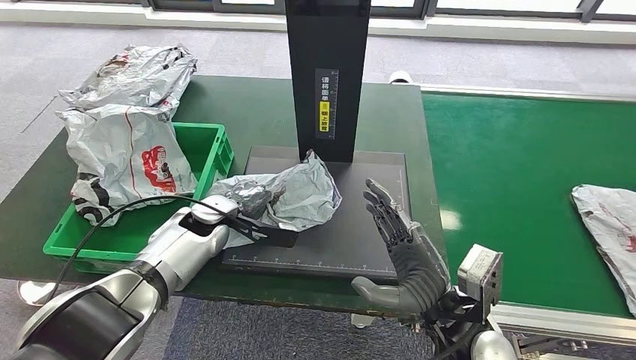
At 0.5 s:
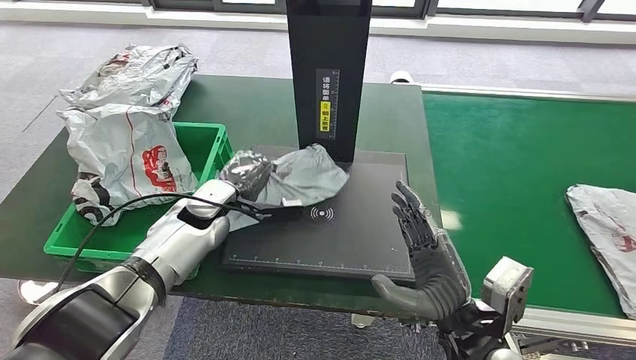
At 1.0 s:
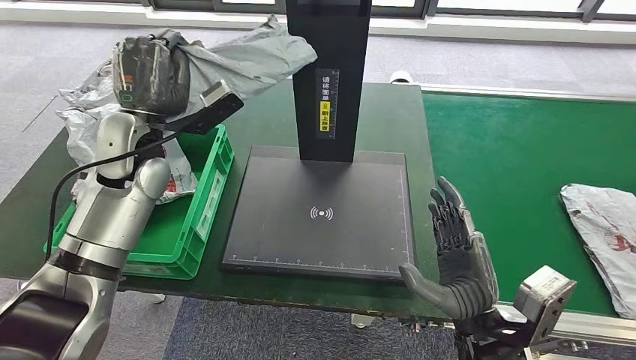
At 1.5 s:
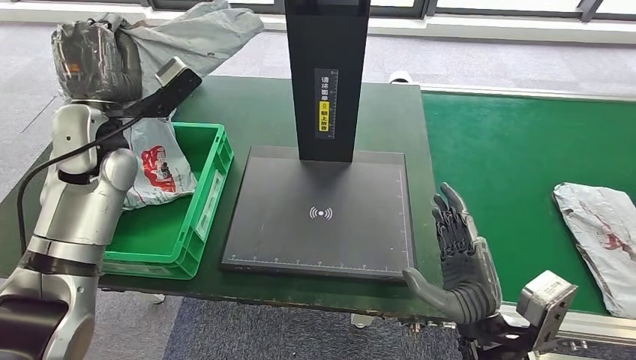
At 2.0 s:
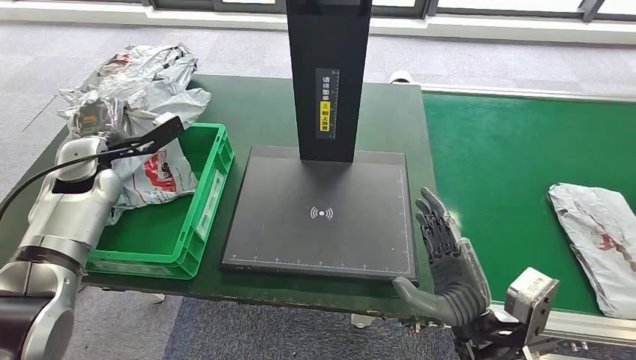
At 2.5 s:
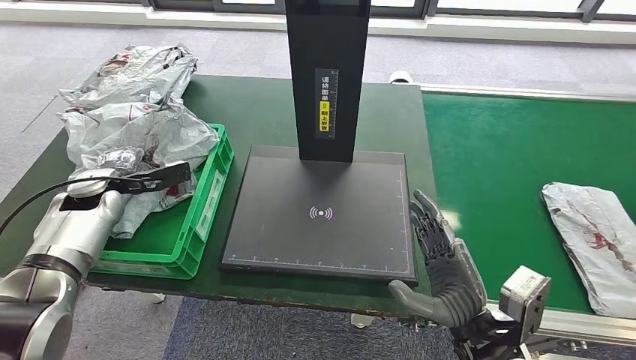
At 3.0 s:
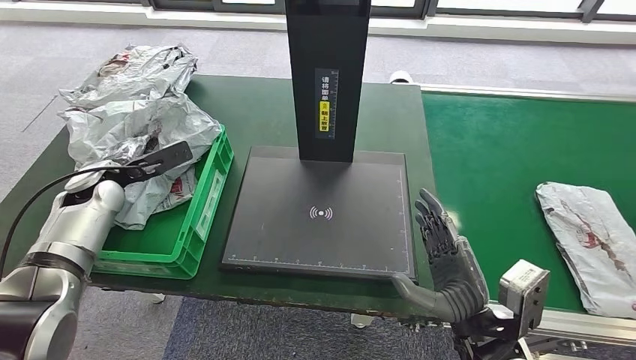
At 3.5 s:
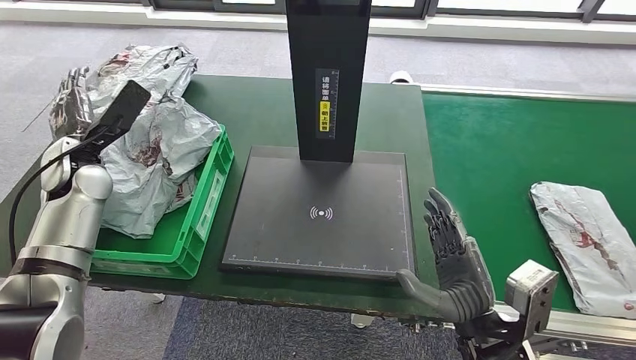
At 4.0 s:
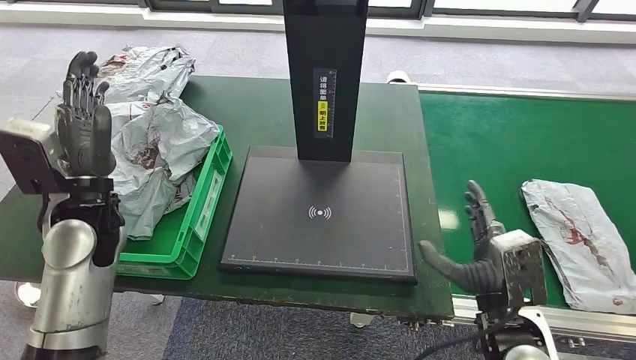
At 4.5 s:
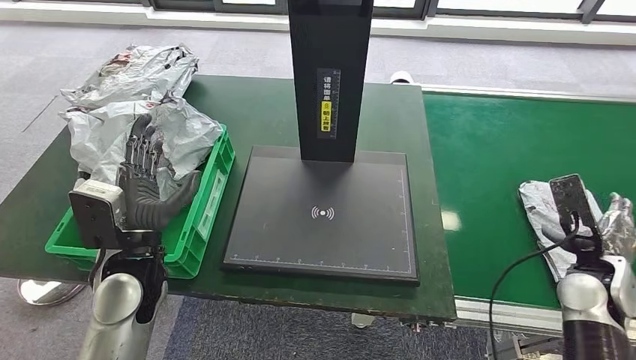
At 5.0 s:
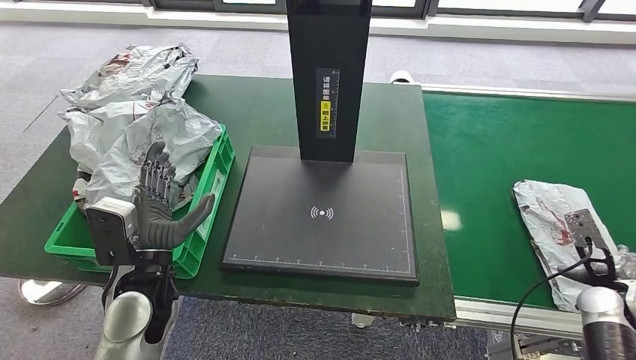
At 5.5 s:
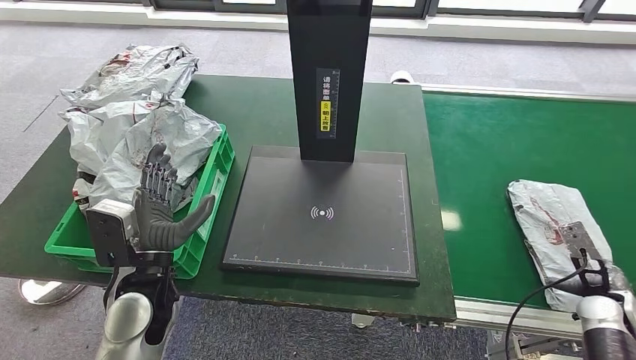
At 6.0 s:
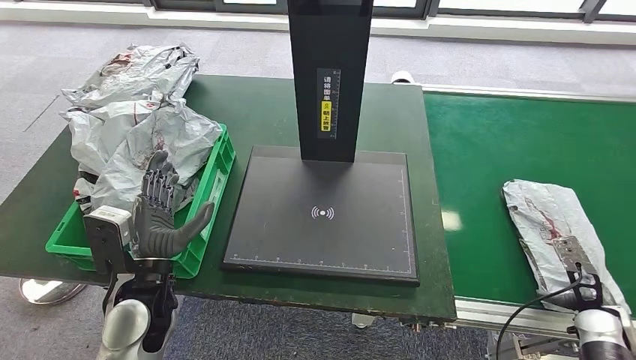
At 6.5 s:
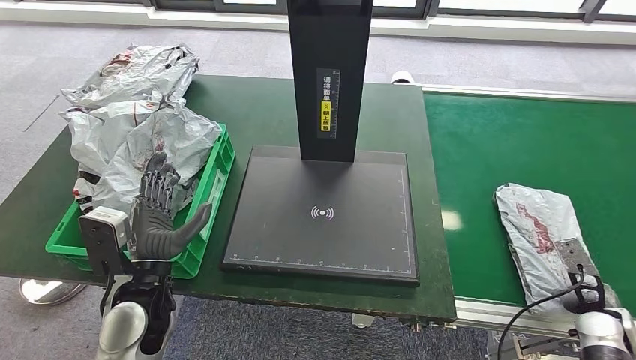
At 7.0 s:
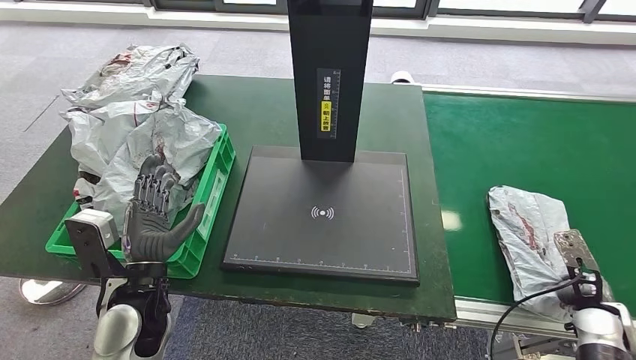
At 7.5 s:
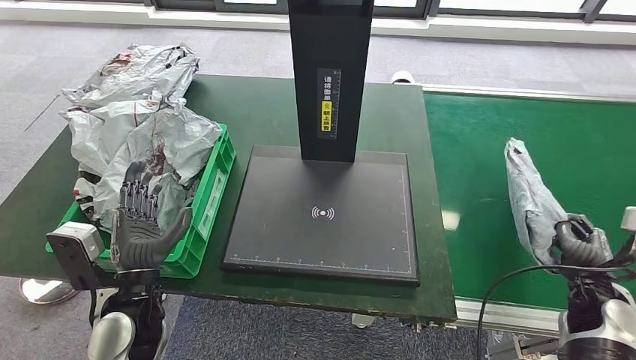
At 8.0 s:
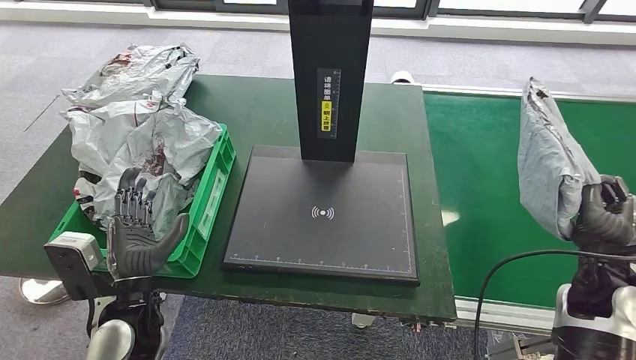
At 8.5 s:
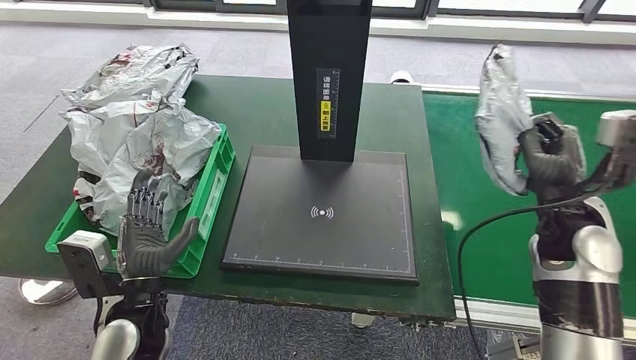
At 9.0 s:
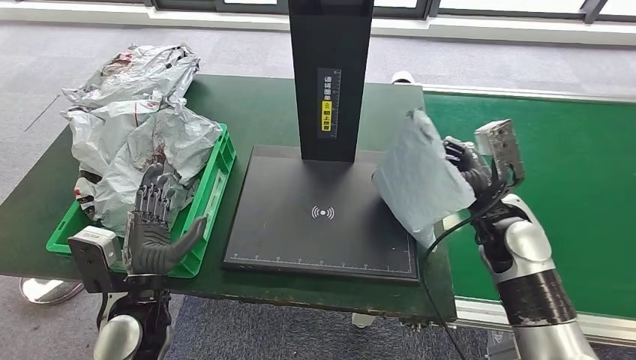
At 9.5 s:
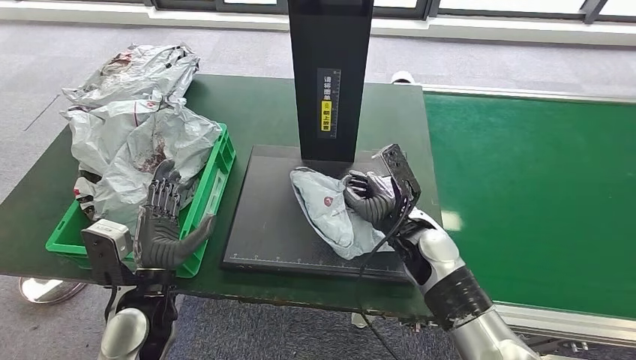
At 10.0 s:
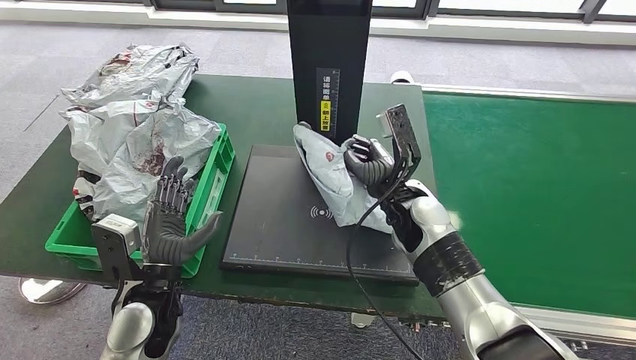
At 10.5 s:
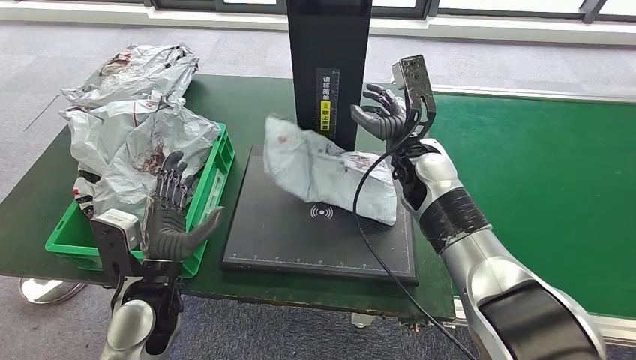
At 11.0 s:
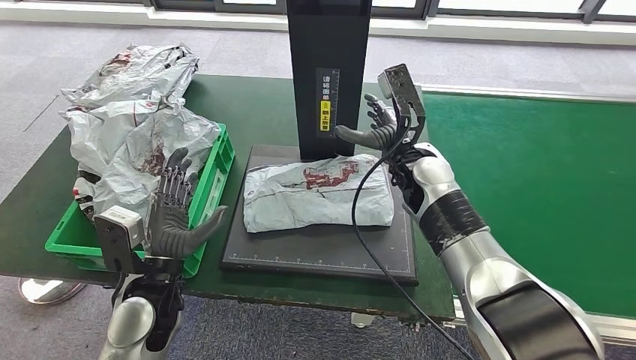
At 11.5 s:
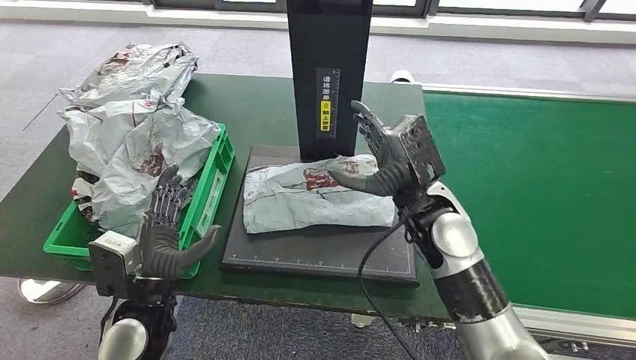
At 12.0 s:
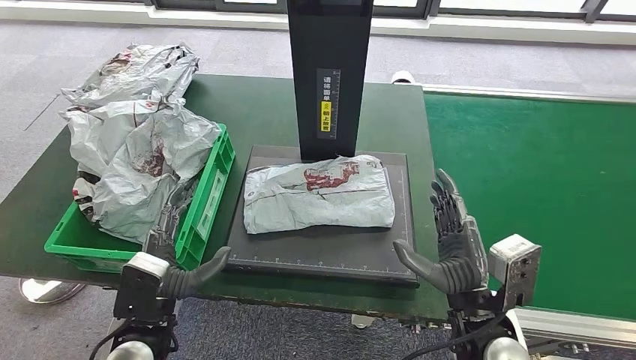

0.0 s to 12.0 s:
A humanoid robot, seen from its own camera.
Step, 2.0 to 5.0 s: Place the parcel into the delivery box.
Step, 5.5 to 8.5 s: Pick up the parcel from the conveyor belt.
Step, 9.0 to 11.0 s: Place the parcel onto the inbound machine.
6.0 to 8.0 s: The right hand moves upward and to the left, some 15 cm.
10.0 to 12.0 s: The right hand heads backward and to the right, covering about 20 cm.

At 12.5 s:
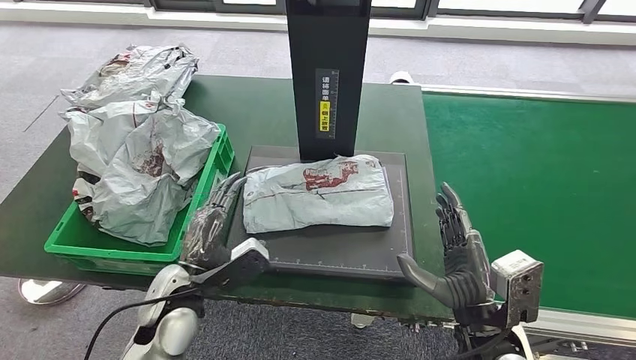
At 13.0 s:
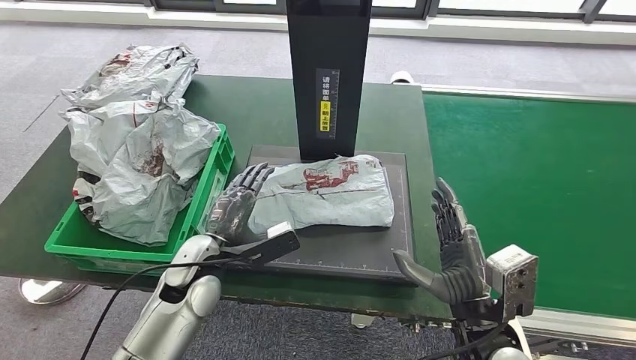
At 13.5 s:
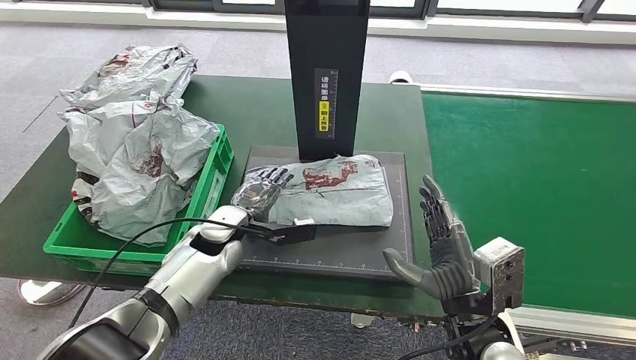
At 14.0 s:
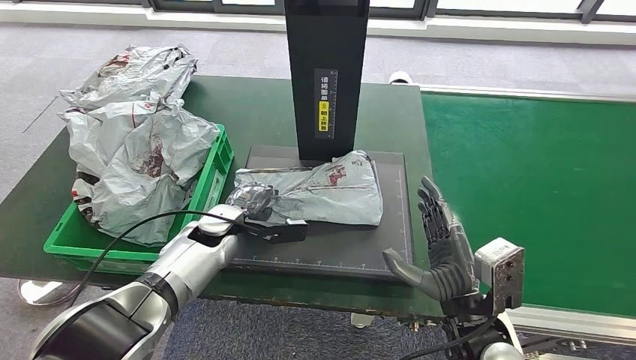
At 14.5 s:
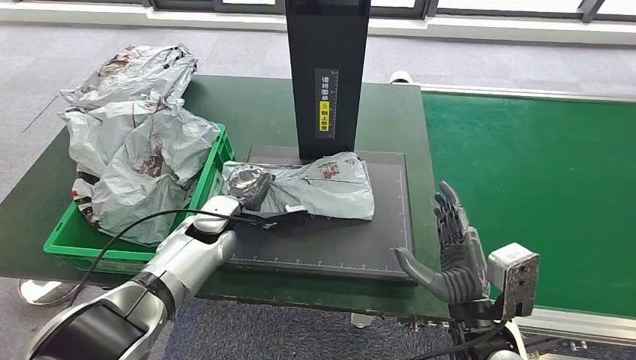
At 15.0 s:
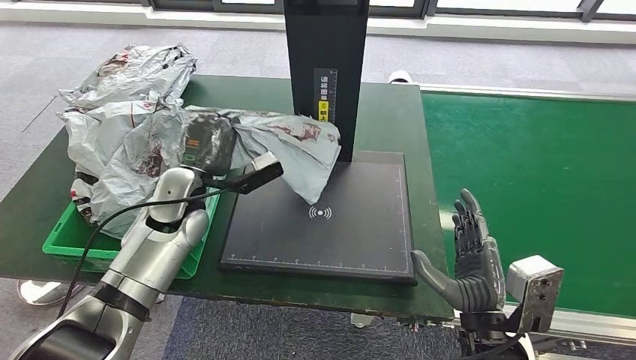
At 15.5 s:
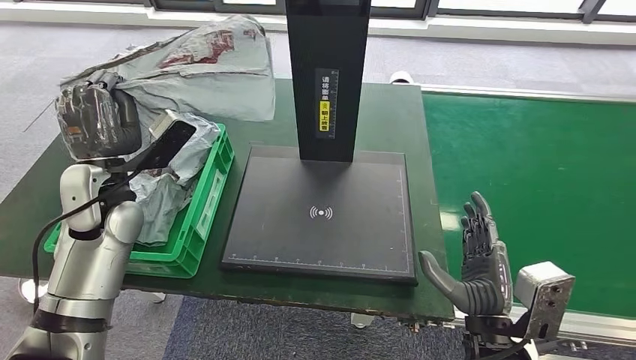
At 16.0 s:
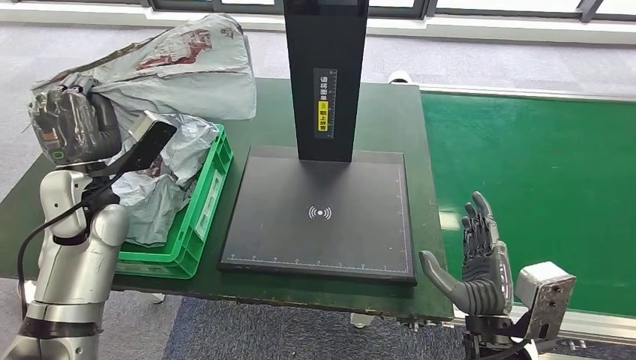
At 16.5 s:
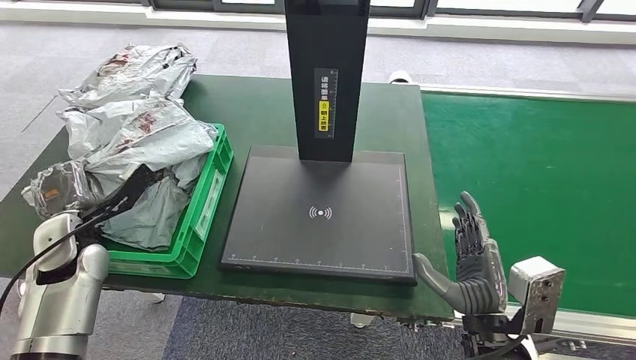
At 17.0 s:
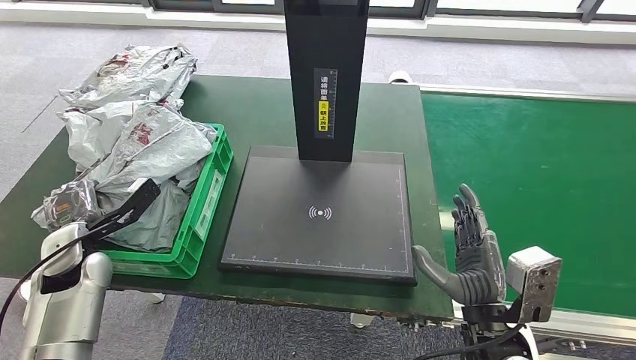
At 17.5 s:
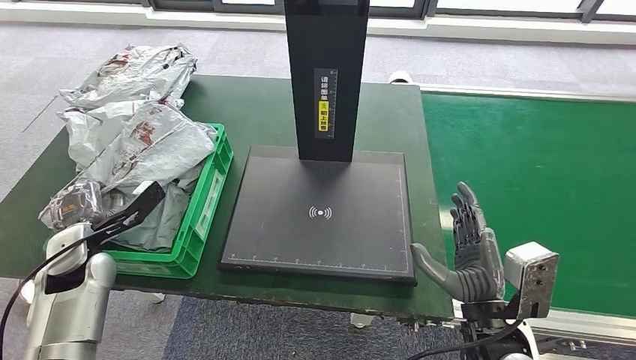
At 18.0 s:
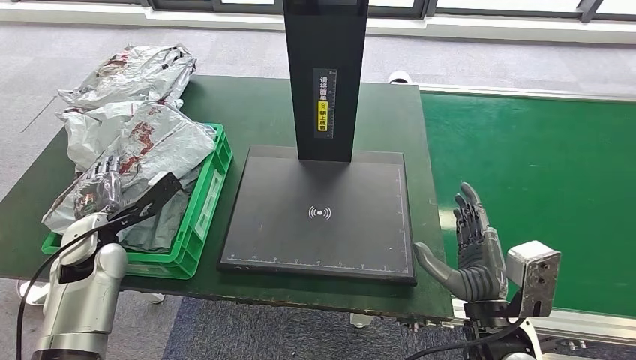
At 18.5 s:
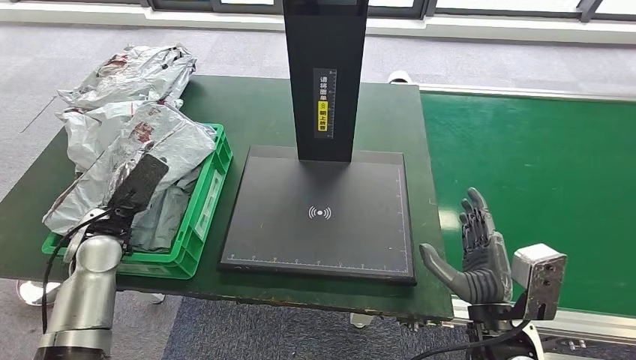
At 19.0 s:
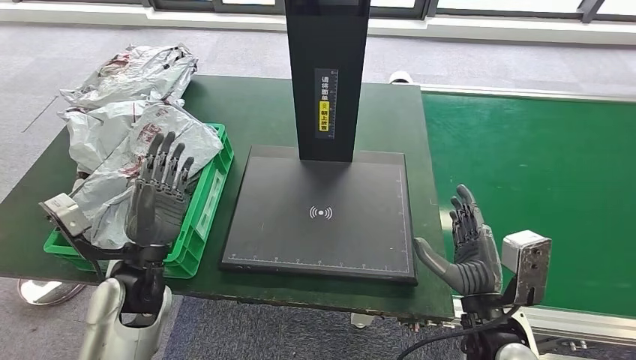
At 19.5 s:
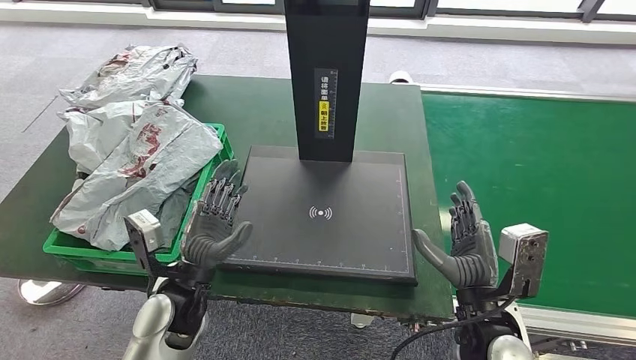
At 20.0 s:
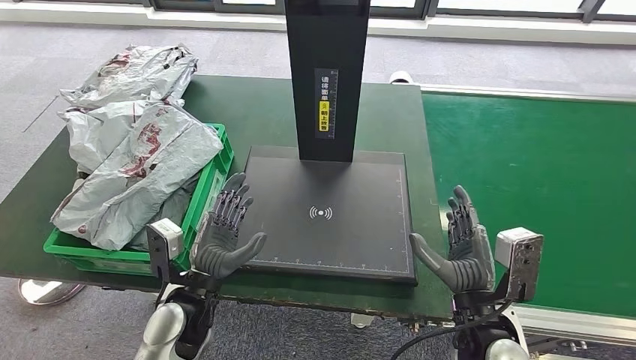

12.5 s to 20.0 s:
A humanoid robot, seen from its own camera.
Step, 12.5 to 15.5 s: Pick up the parcel from the inbound machine.
Step, 16.0 to 20.0 s: Place the parcel into the delivery box.
12.5 to 14.5 s: The left hand travels forward by approximately 15 cm.
16.5 to 18.0 s: The hands make only small movements.
18.0 to 20.0 s: The left hand goes roughly 20 cm to the right and backward.
